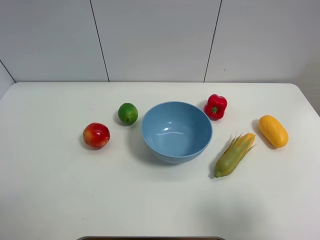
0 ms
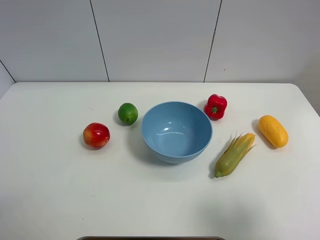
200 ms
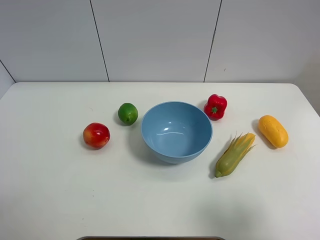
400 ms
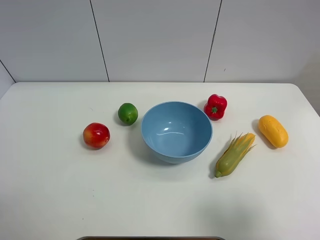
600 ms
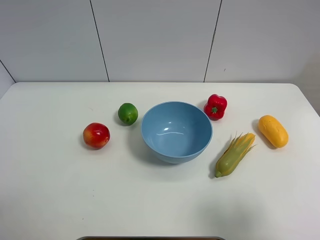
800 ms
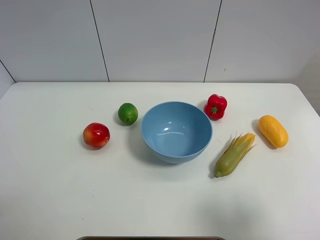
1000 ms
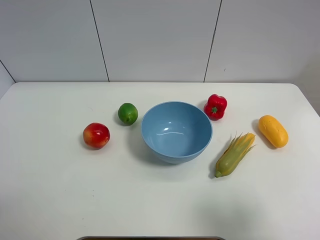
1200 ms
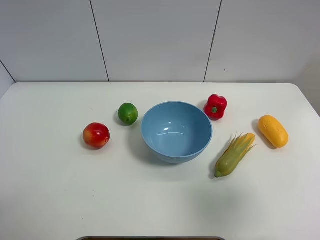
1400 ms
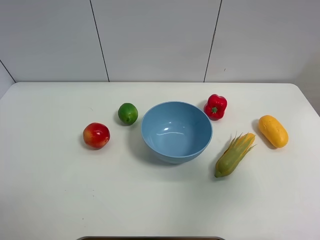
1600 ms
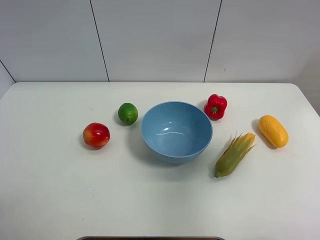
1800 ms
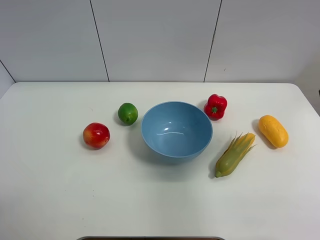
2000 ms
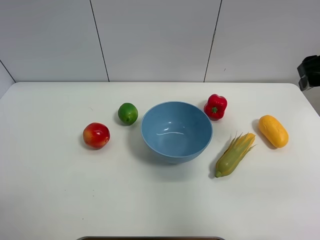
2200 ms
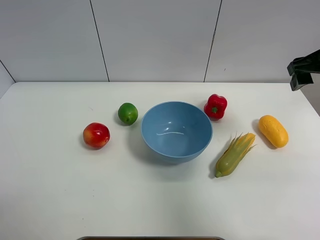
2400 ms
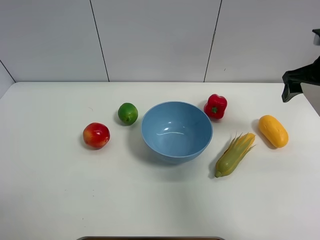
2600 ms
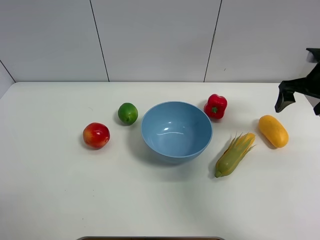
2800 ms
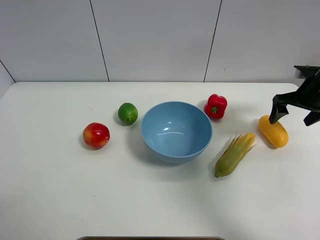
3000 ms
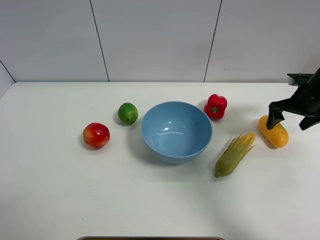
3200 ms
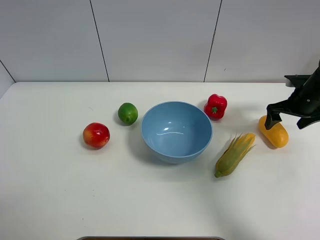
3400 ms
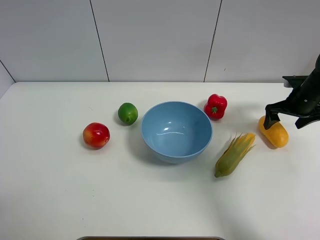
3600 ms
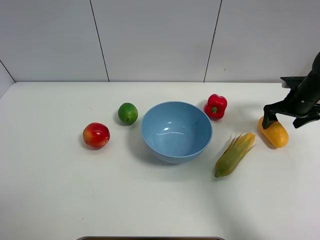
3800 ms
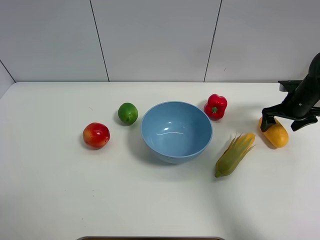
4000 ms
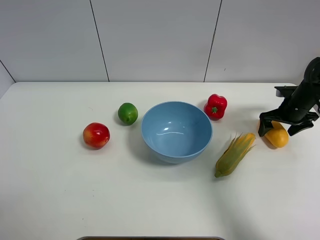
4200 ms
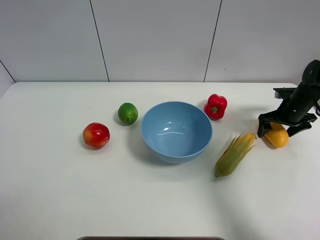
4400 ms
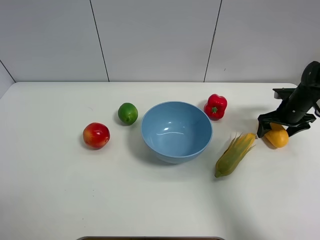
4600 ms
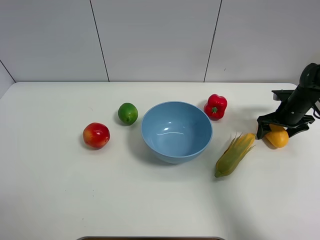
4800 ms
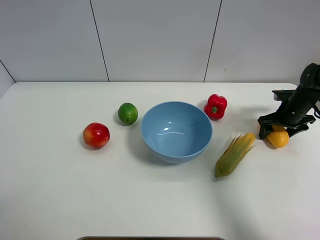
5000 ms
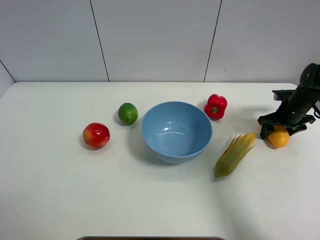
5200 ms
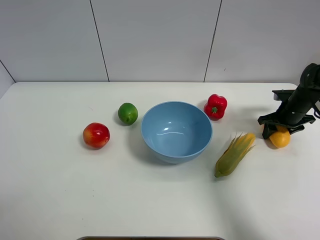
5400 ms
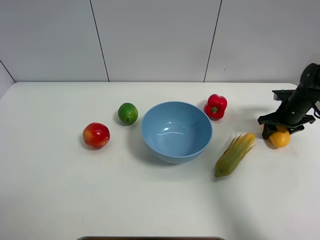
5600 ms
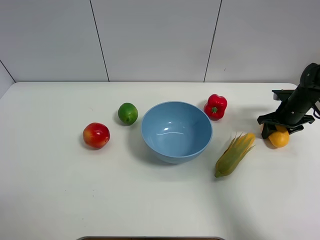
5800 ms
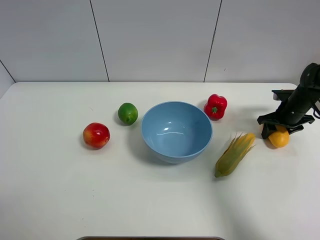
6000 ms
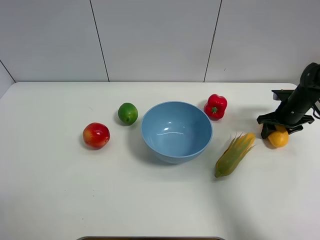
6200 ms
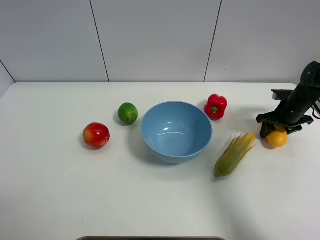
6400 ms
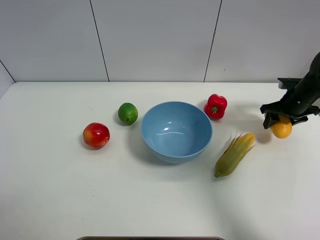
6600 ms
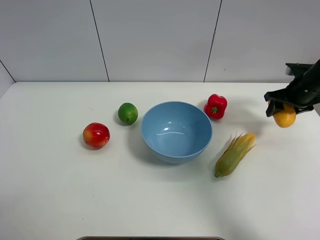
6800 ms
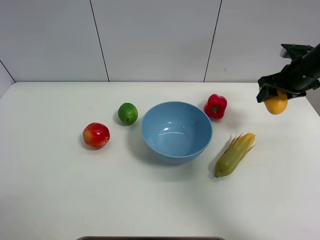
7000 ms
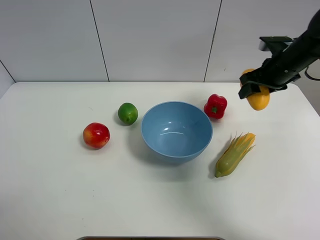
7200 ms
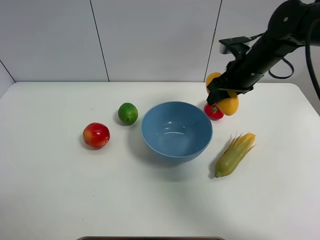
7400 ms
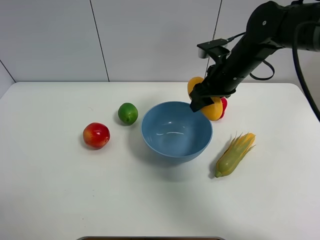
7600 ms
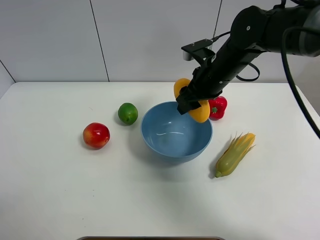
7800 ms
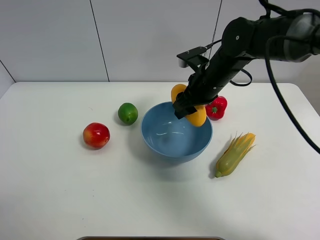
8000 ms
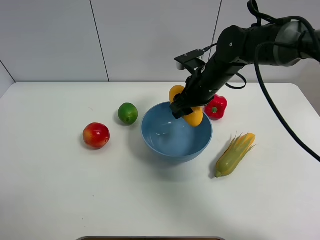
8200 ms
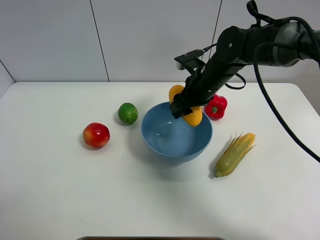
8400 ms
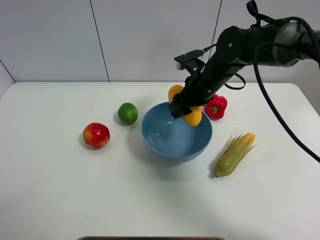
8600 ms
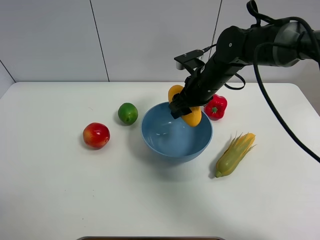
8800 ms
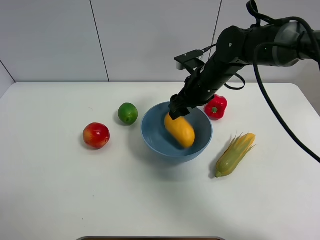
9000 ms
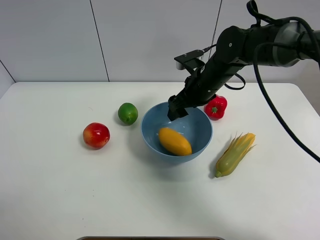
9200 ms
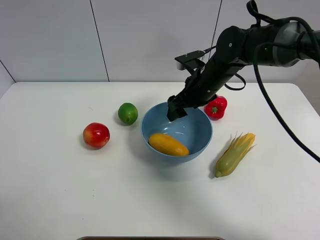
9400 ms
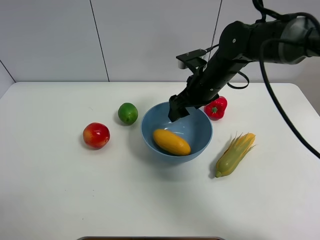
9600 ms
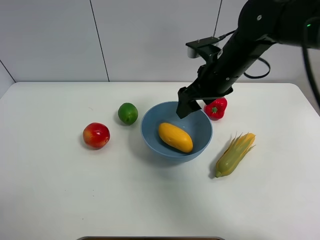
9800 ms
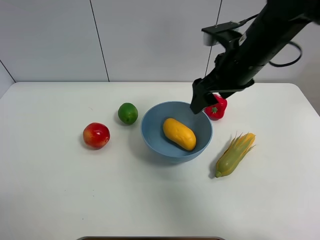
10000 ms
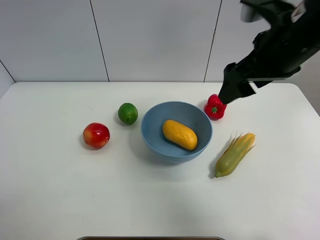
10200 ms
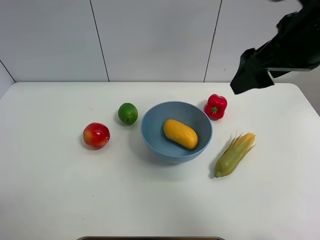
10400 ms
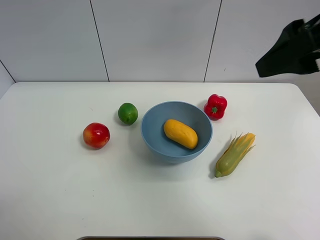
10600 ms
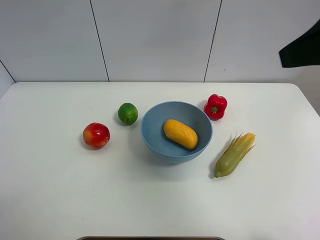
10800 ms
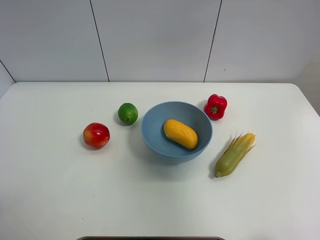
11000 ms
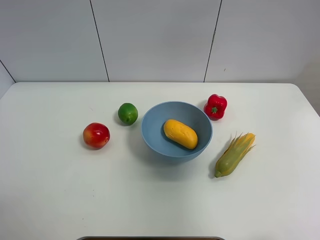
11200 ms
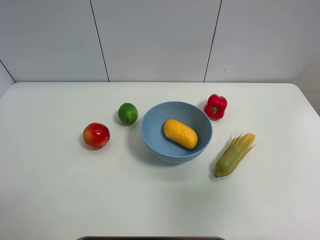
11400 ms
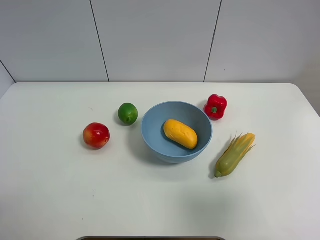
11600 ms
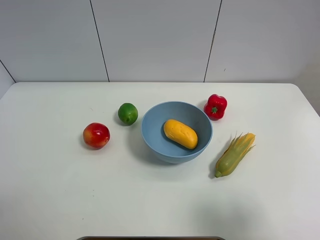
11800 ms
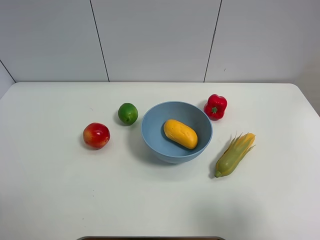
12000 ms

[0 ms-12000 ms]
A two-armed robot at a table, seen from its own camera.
Task of the whole recording: Put the three fruits on the table into a bowl.
Step, 0 ms to 5400 ms: Grasp the mango with right gripper.
Step, 5600 ms to 9000 ms: Place the mango in the blue bowl with right gripper.
0 ms to 1600 ms: The right gripper travels forward and upward by roughly 10 cm.
1600 ms to 3000 ms: The right gripper is displaced forward and downward by some 30 cm.
3000 ms to 4400 ms: The right gripper heads downward, covering about 10 cm.
4400 ms to 6000 ms: The right gripper closes up.
6000 ms to 7600 ms: The right gripper travels to the left and upward by some 30 cm.
7600 ms to 9000 ms: The right gripper shifts by roughly 5 cm, and opens its fingers.
9000 ms to 10400 ms: The right gripper moves upward, backward and to the right, some 25 cm.
10400 ms to 12000 ms: The right gripper goes some 25 cm backward, to the right and downward.

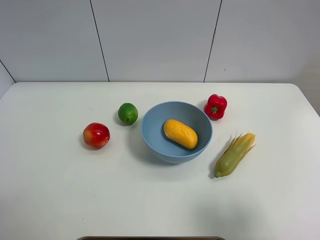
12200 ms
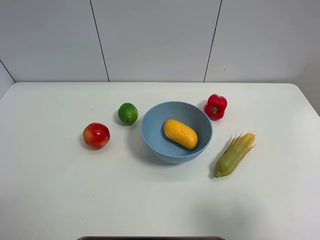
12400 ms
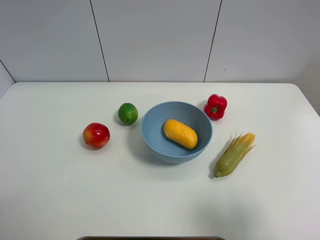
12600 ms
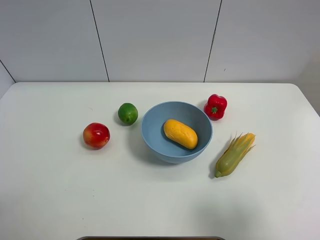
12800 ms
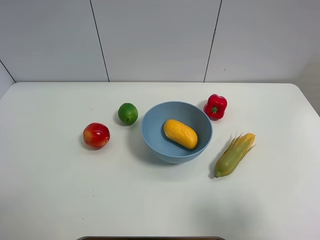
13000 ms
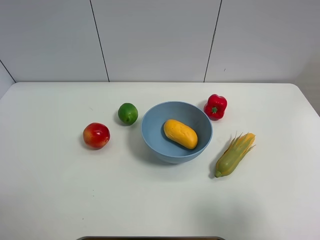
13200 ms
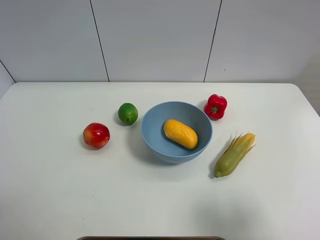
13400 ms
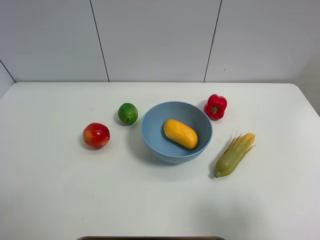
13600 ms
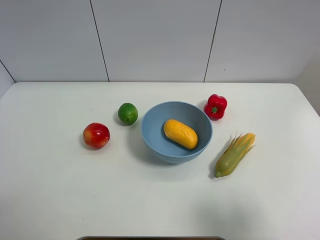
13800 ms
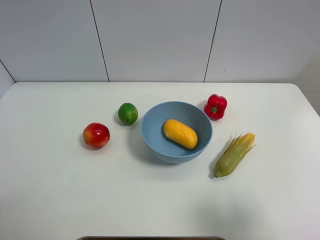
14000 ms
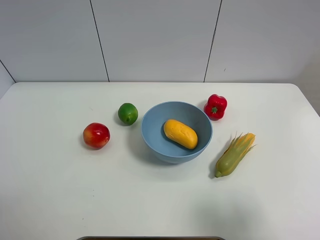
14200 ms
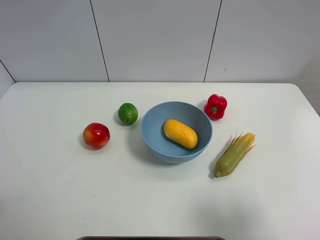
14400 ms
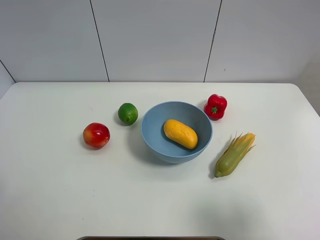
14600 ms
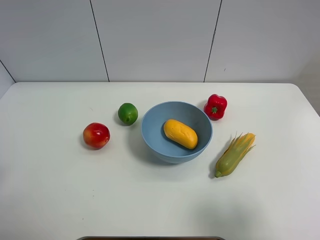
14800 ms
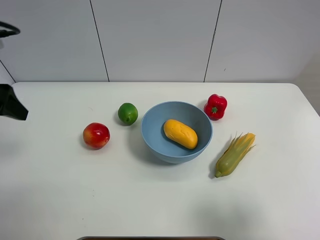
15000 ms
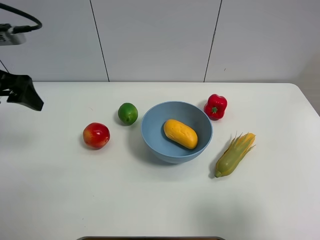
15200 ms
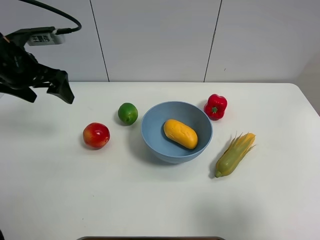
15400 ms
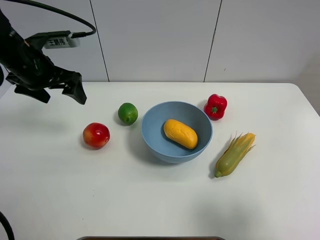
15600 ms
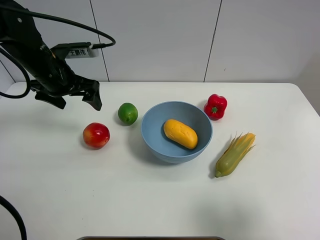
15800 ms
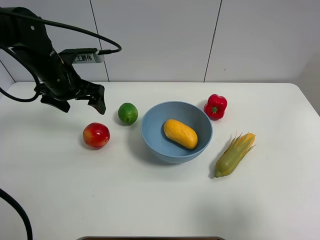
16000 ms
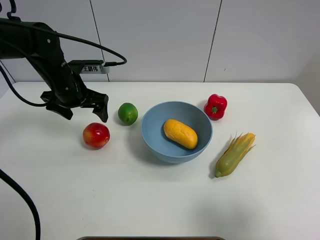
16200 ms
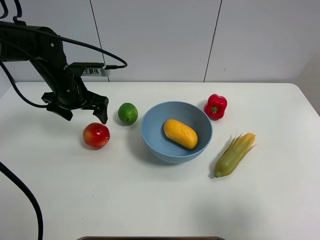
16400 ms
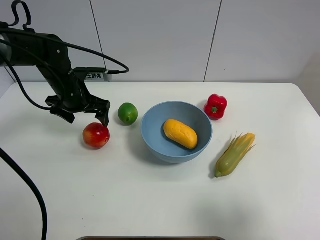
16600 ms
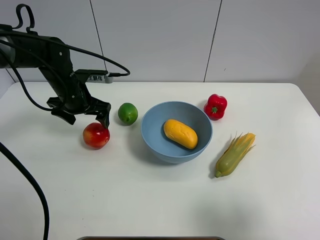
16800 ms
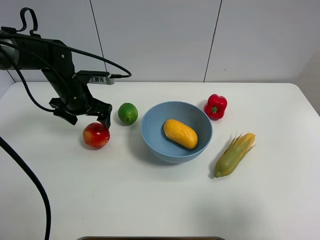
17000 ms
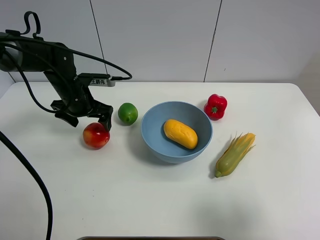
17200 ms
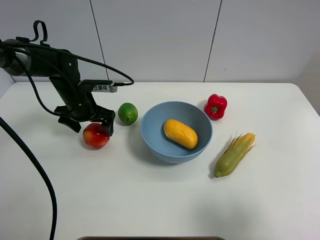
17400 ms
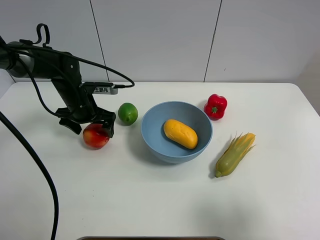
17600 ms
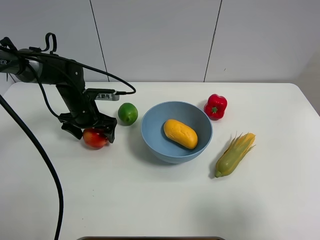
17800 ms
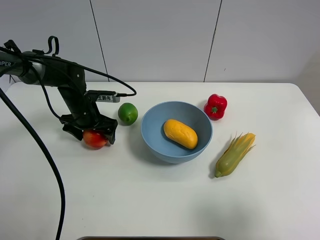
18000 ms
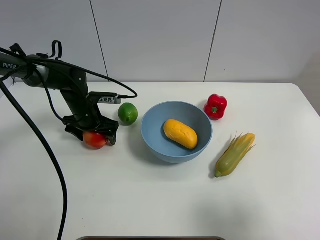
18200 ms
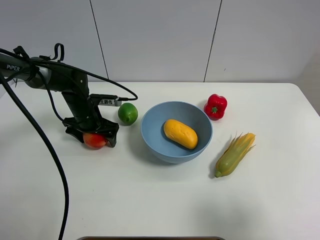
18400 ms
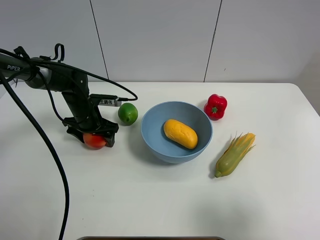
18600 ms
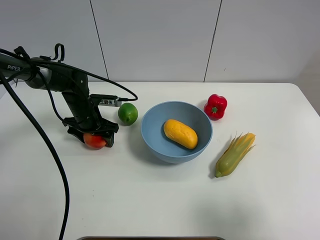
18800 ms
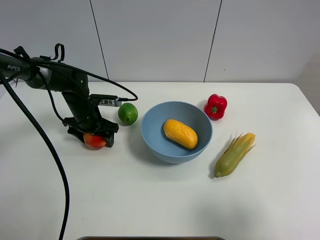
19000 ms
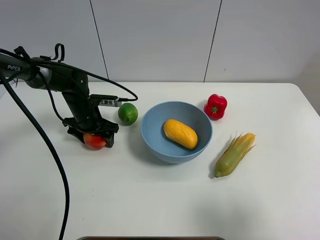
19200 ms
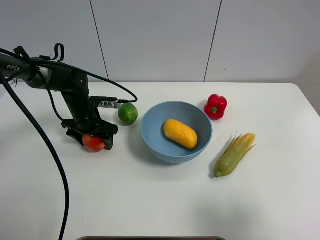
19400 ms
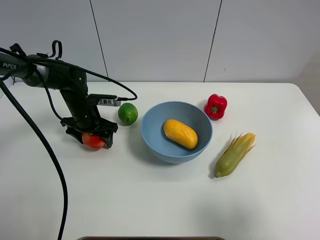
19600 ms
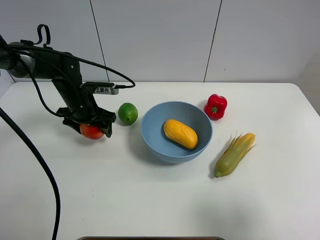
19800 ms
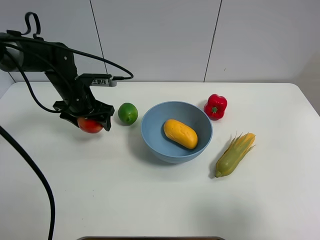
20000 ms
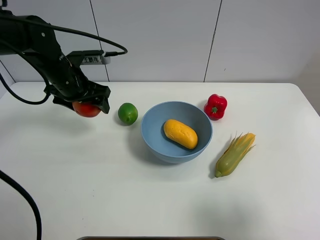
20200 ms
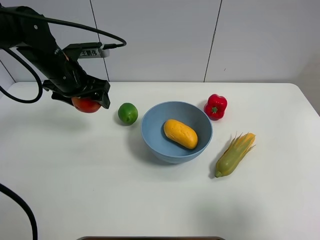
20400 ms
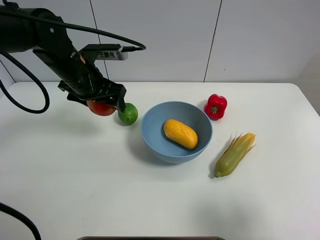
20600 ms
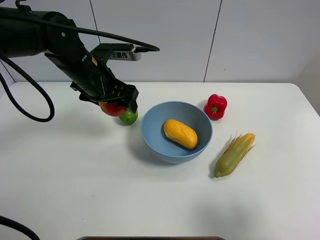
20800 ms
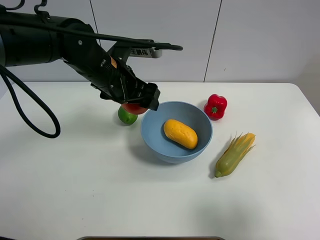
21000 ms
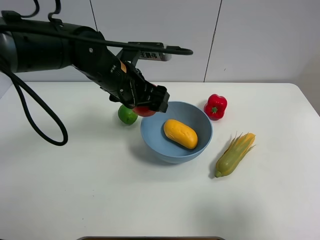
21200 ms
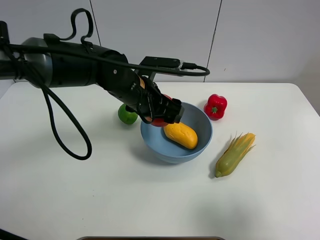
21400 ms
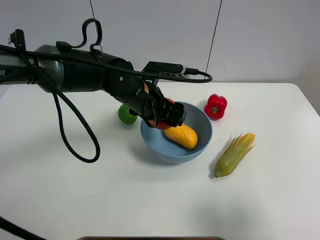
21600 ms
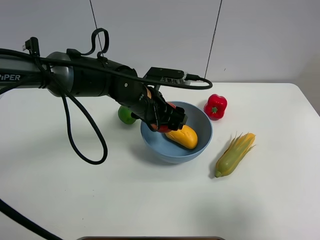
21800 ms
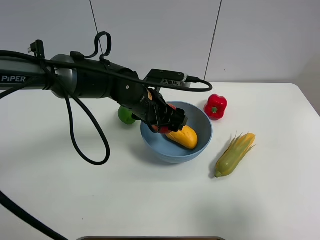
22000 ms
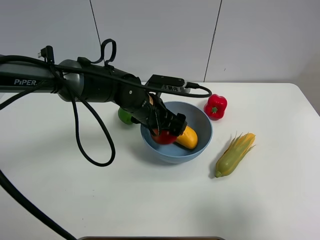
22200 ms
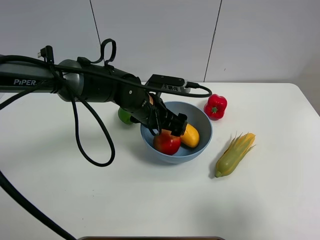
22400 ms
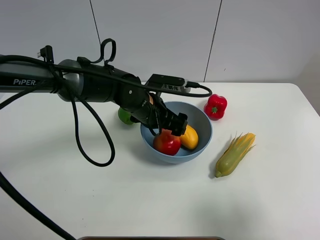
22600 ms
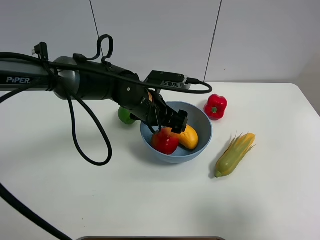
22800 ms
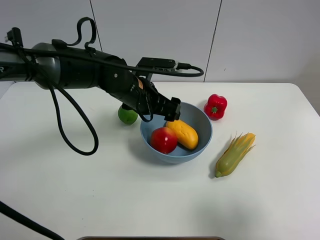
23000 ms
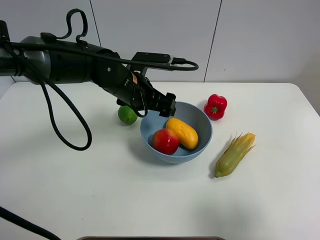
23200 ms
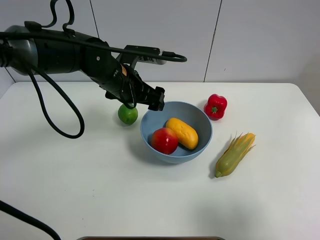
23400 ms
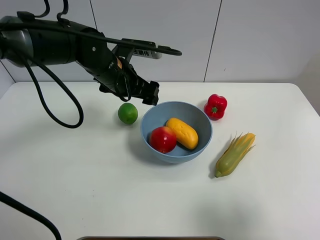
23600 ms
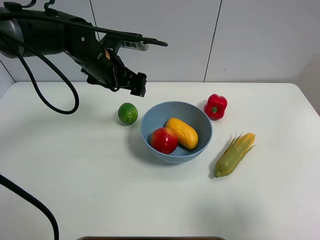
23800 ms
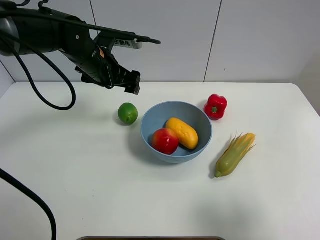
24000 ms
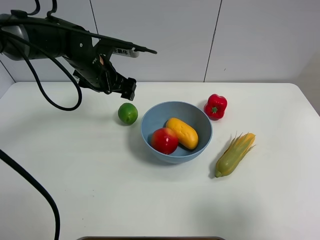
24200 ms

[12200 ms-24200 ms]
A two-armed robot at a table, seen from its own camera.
Task of the whole recording: Put the three fruits on the table into a bowl.
Step, 12200 ms to 18800 ms: Grasp the pomegranate with left gripper.
Step, 19000 ms to 22800 ms: Place the pomegranate in the blue bowl with left gripper.
12200 ms to 13800 ms: Both grippers stay about where they are.
13800 ms to 15200 ms: The left gripper goes roughly 25 cm forward.
15200 ms to 16600 ms: The left gripper heads downward, to the right and forward, covering roughly 20 cm.
16600 ms to 18200 ms: The left gripper travels downward by about 10 cm.
18200 ms to 19800 ms: The left gripper closes up.
19800 ms to 21200 ms: The left gripper is displaced to the right, upward and backward by roughly 20 cm.
21200 ms to 22600 ms: The left gripper shifts approximately 10 cm downward, and opens up.
22600 ms to 24200 ms: The left gripper heads to the left, forward and upward, covering some 15 cm.
